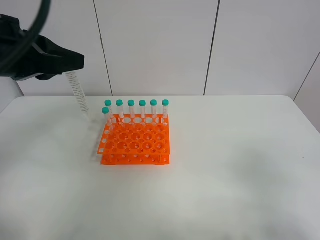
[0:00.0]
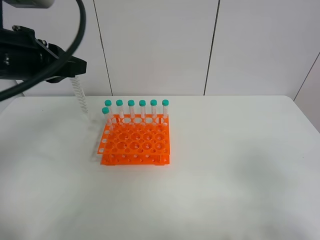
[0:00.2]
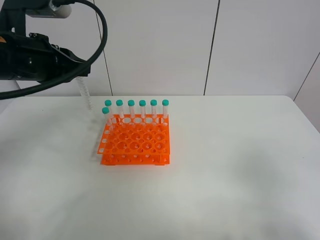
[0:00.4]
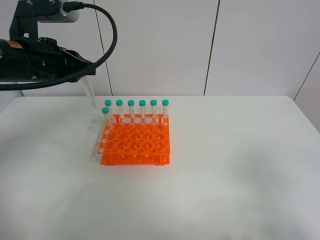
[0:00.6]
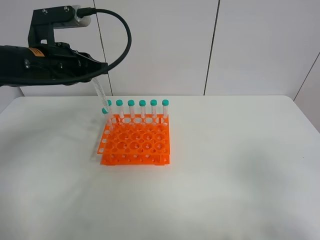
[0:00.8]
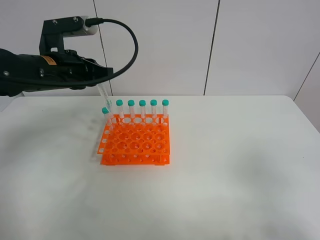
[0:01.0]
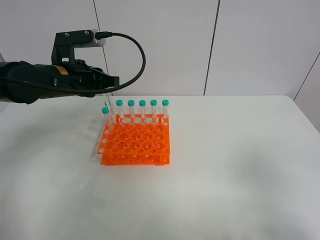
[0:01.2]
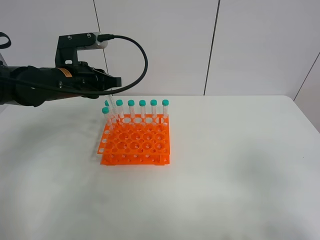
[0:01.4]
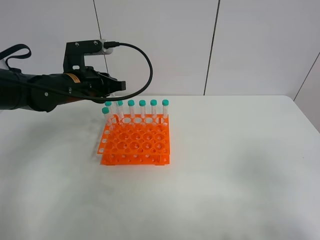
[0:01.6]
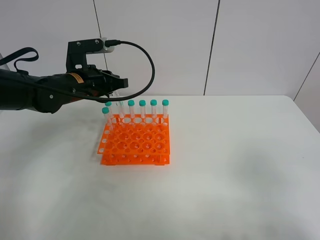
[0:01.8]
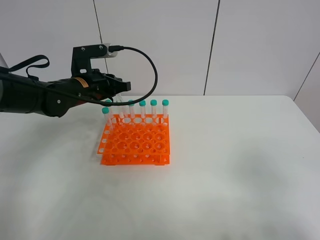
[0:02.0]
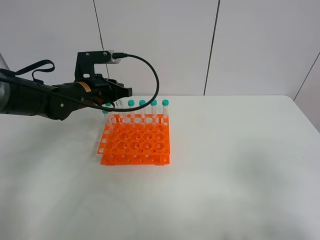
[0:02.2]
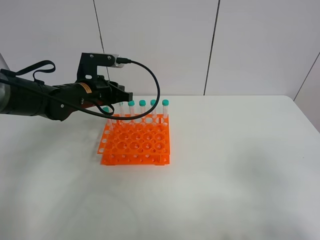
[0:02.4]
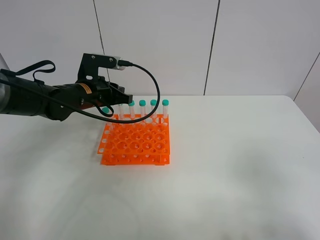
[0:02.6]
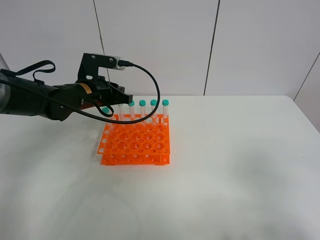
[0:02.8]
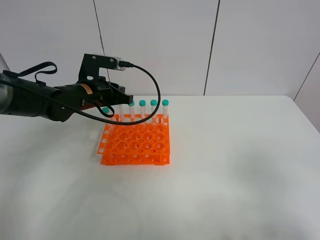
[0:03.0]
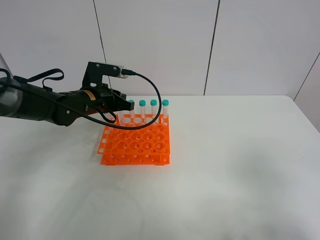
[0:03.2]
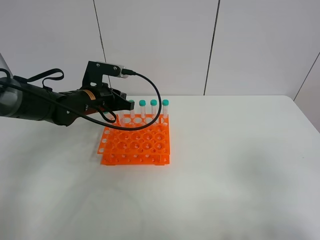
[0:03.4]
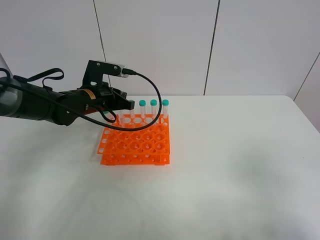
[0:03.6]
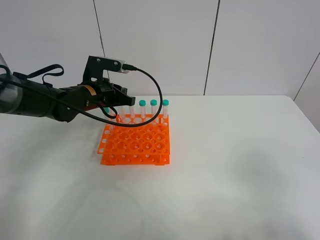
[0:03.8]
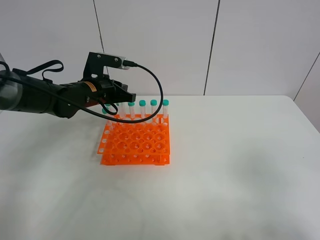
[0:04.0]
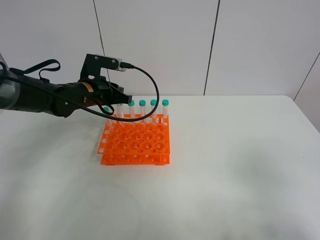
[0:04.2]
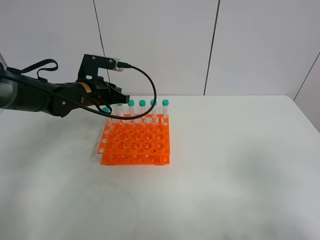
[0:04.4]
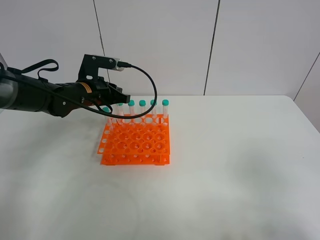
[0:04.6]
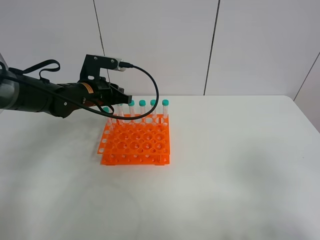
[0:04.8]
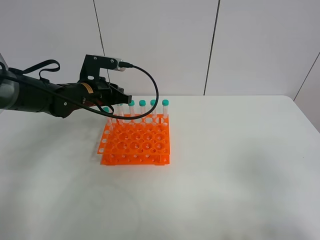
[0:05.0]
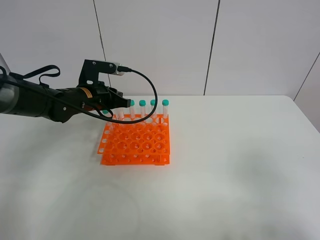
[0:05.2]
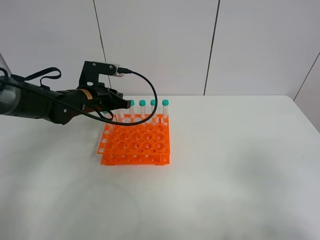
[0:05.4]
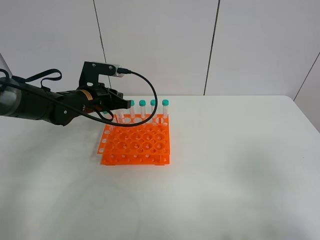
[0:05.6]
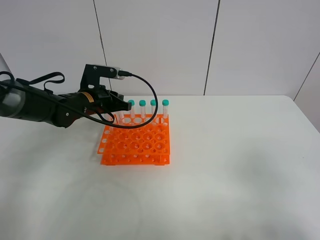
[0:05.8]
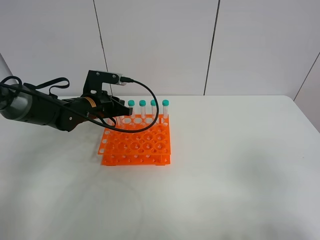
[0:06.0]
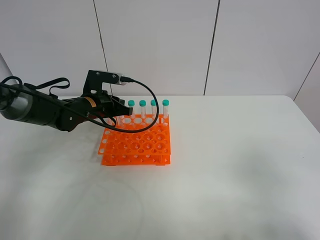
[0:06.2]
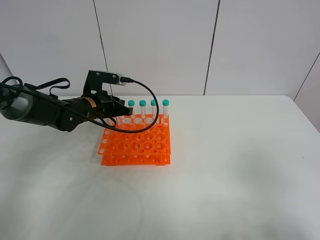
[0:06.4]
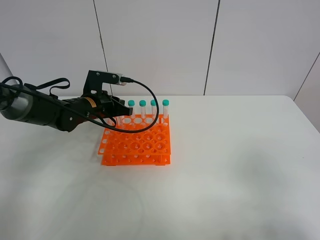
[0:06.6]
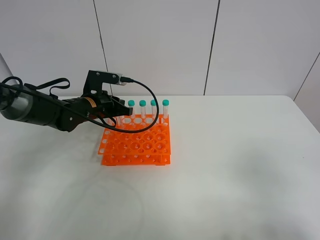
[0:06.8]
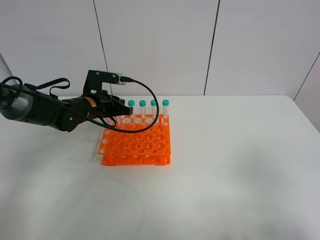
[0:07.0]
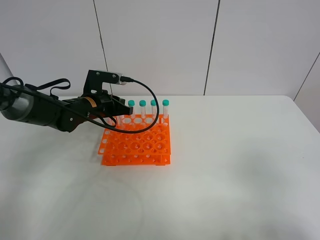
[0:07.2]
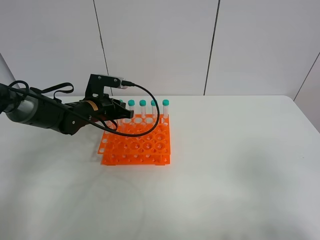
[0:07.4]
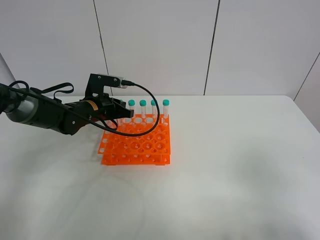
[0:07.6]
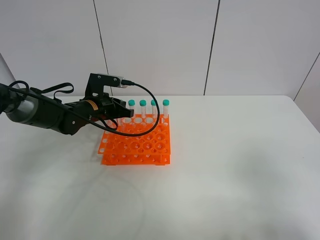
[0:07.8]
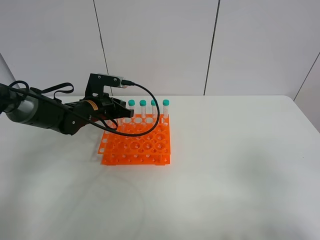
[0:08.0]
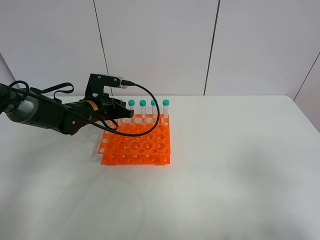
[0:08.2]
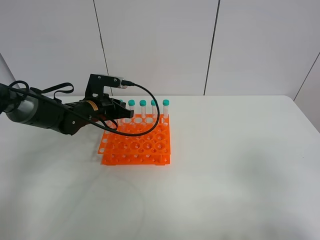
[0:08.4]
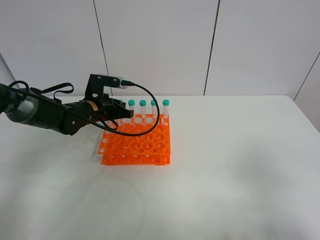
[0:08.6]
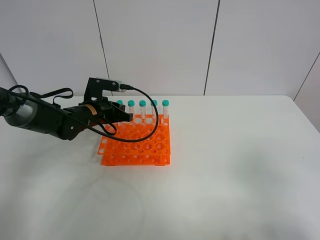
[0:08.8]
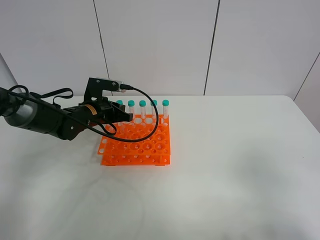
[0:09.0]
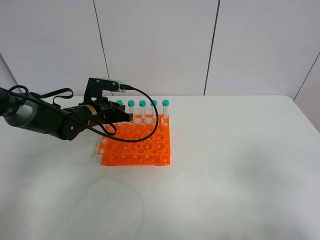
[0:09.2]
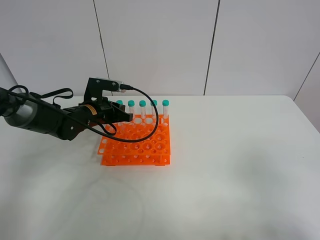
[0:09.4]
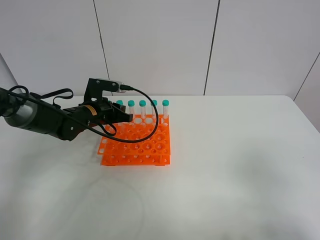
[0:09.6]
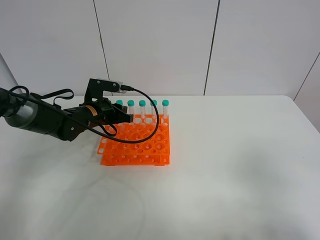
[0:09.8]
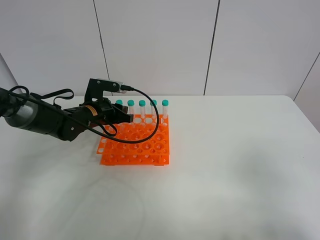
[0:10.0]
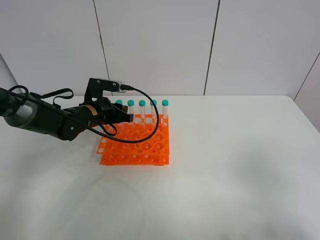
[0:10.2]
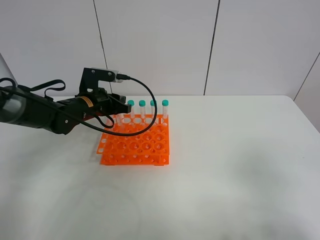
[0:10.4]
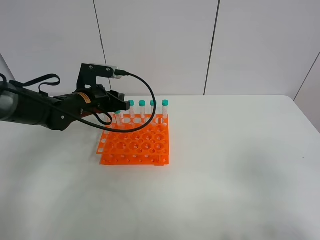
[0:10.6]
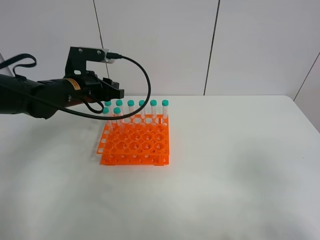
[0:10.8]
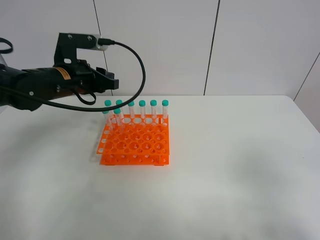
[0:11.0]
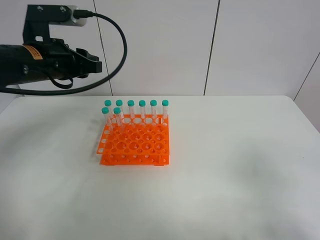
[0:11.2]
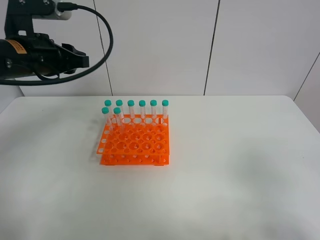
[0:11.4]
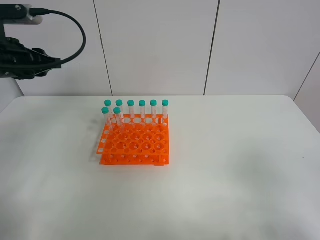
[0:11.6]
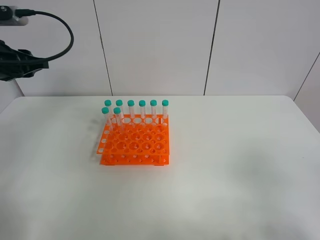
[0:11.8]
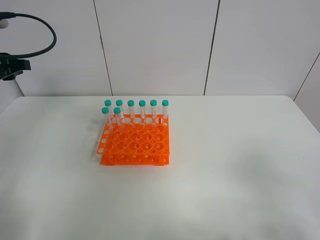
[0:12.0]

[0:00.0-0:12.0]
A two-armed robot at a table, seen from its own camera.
Task of the whole recording: Put the test tube on the table back onto the test tube rack.
Step, 0:00.0 to 0:10.8: Place the test tube on the test tube rack with the left gripper.
0:00.0 to 0:01.6: The left gripper travels forward and downward by approximately 20 cm.
0:01.6 to 0:04.4: The grippers make only small movements.
0:04.4 to 0:06.0: The grippers make only small movements.
0:06.0 to 0:07.6: Both grippers stay put.
0:07.6 to 0:09.0: Neither gripper changes place.
0:09.0 to 0:10.4: The left gripper opens.
0:10.4 to 0:12.0: The left gripper heads to the left and upward, covering approximately 20 cm.

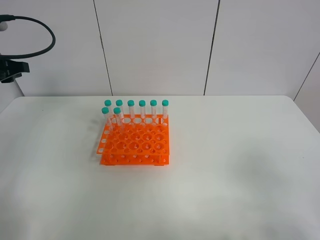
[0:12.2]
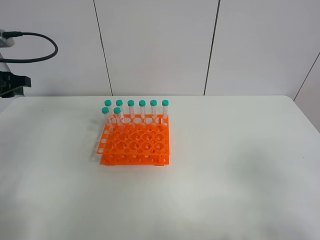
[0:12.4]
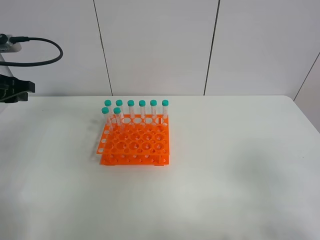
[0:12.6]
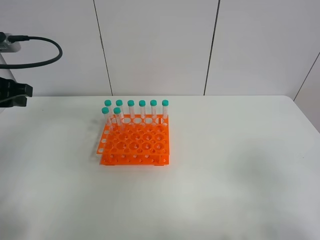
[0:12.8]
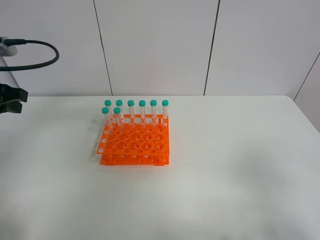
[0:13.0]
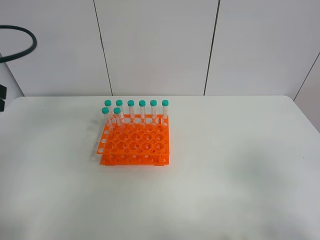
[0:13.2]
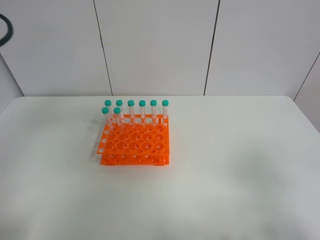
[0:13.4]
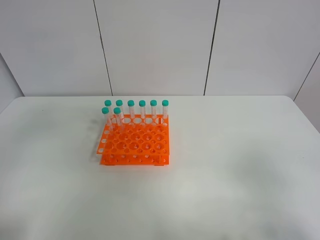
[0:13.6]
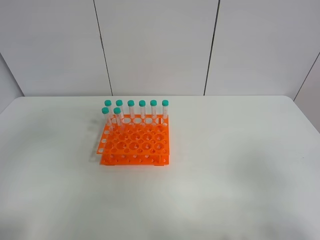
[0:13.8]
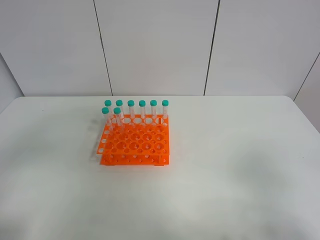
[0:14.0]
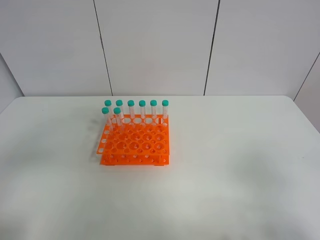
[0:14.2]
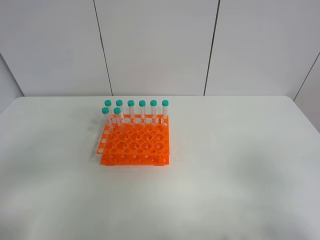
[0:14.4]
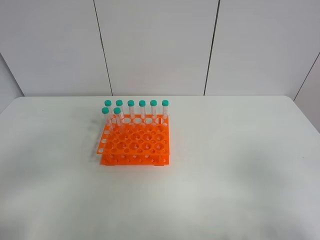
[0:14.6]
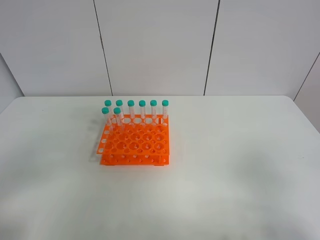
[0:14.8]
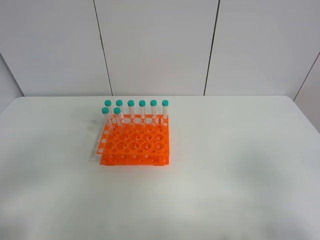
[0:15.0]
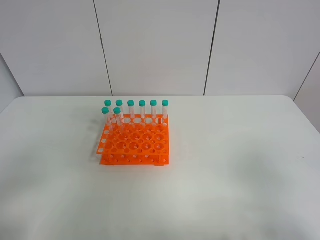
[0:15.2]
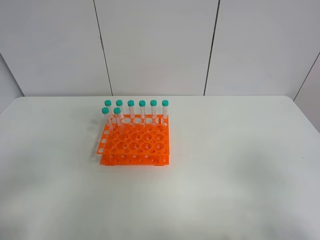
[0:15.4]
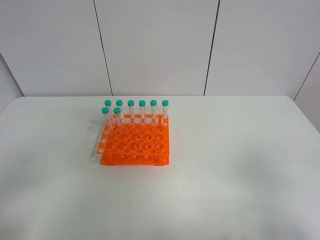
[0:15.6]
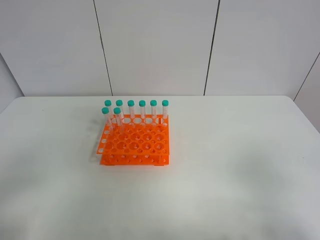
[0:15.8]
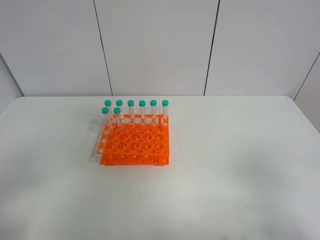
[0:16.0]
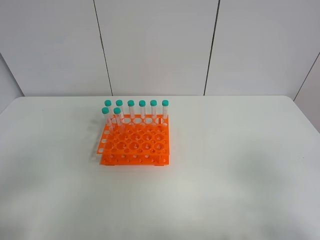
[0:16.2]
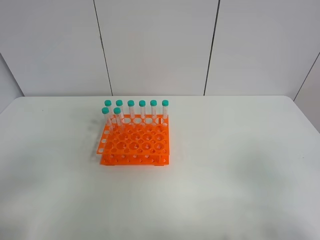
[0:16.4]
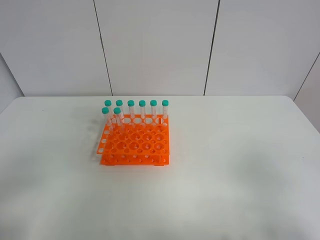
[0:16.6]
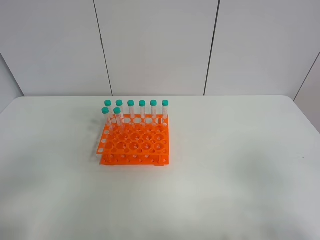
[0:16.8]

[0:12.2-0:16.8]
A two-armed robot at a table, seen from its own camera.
Task of the whole recording: Put the test tube on the table back onto the test tube rack.
0:12.2 to 0:13.8: The left gripper moves backward, roughly 20 cm.
0:15.2 to 0:16.8: Both grippers stay about where they are.
